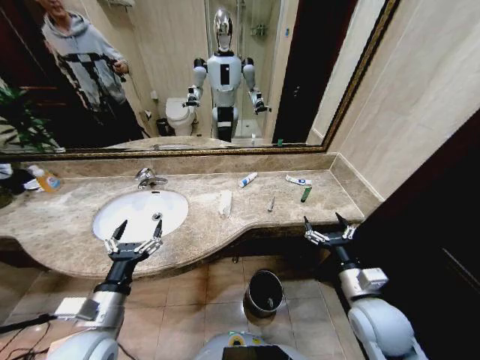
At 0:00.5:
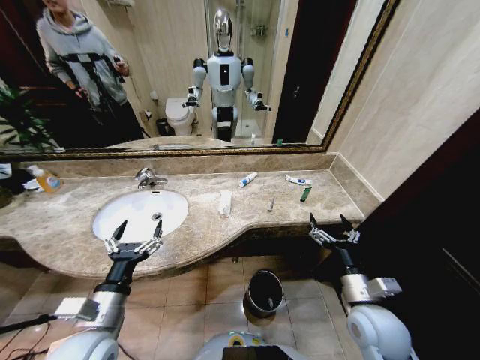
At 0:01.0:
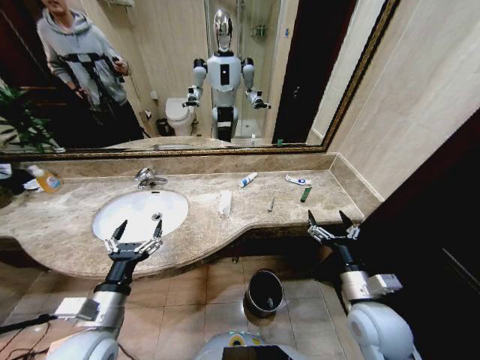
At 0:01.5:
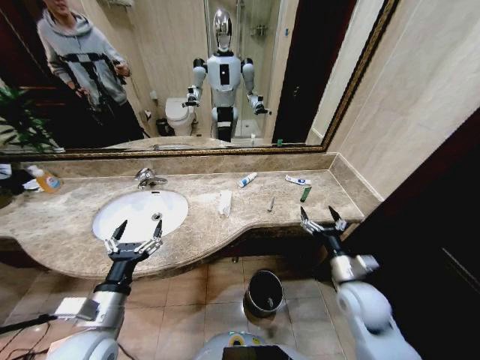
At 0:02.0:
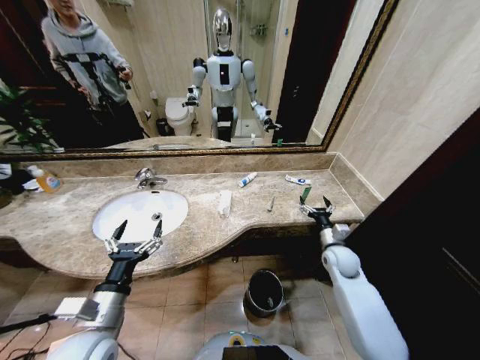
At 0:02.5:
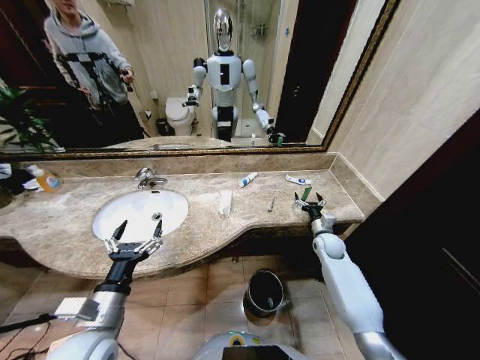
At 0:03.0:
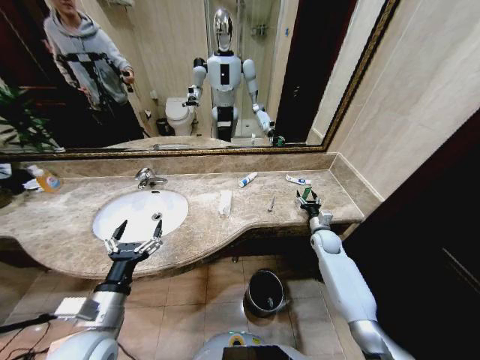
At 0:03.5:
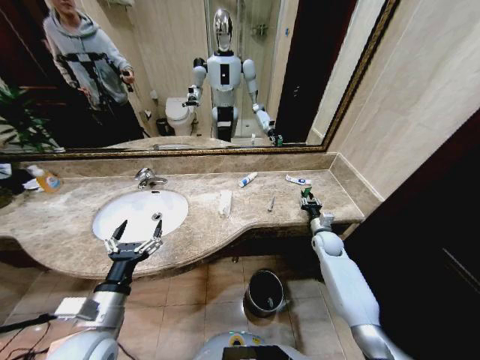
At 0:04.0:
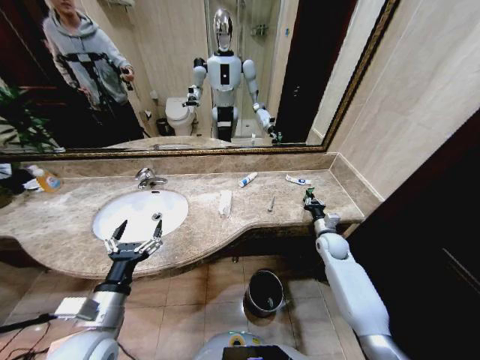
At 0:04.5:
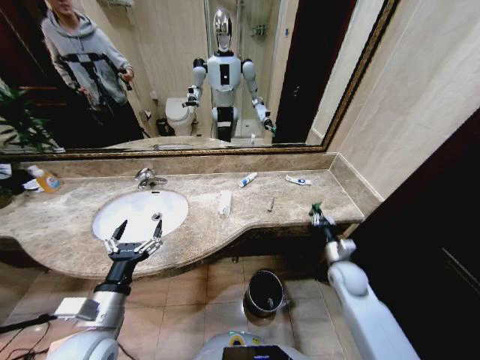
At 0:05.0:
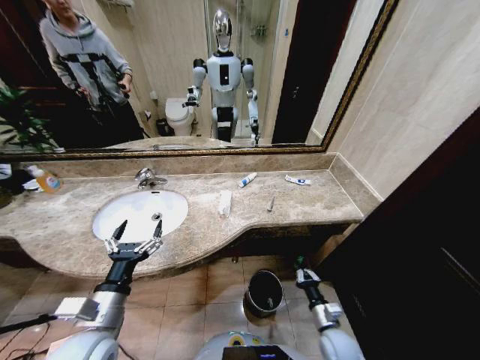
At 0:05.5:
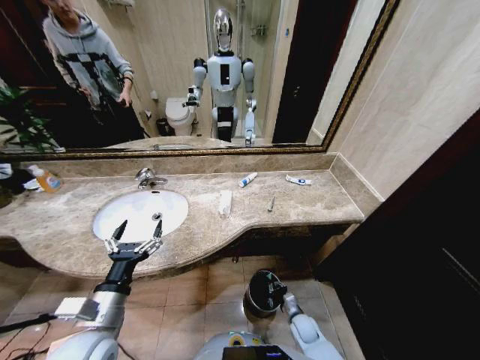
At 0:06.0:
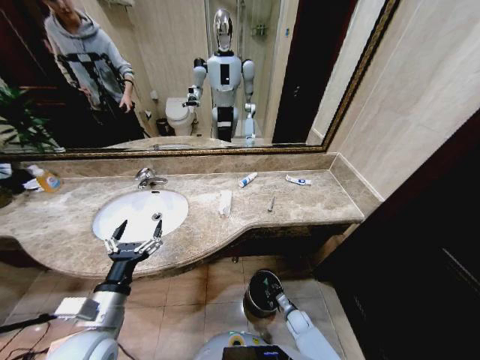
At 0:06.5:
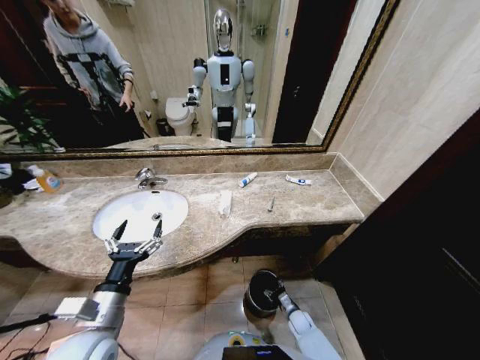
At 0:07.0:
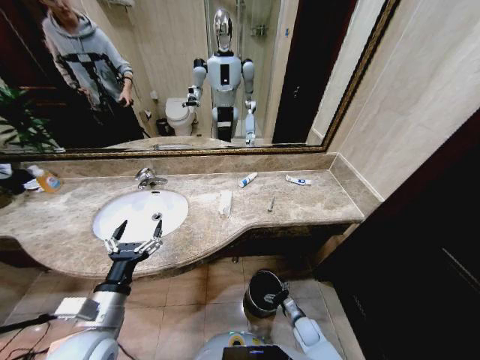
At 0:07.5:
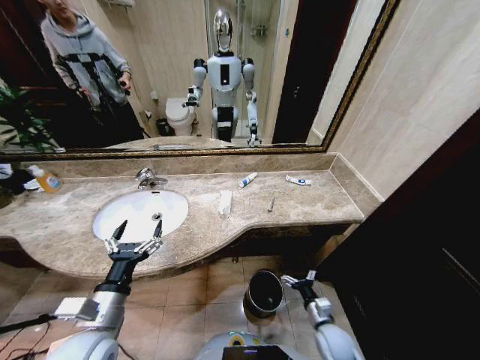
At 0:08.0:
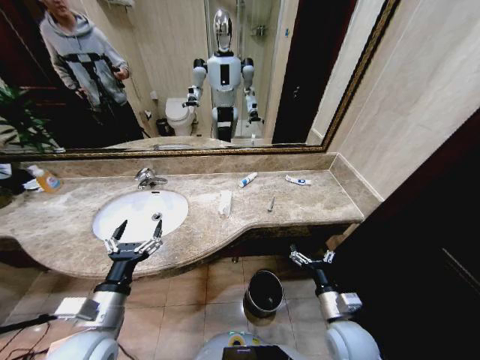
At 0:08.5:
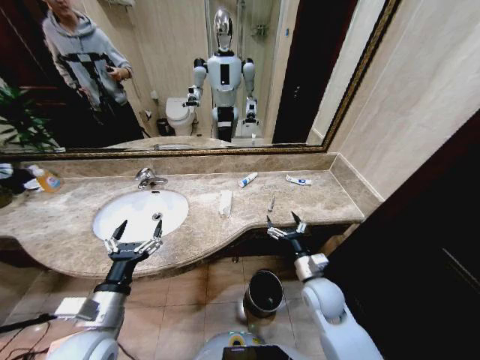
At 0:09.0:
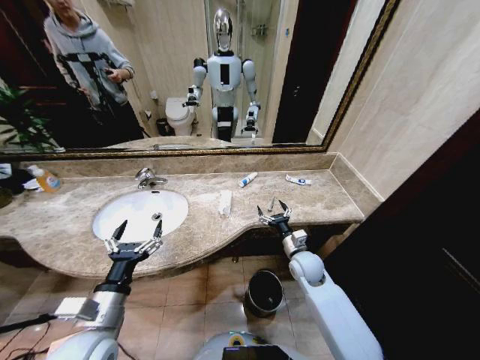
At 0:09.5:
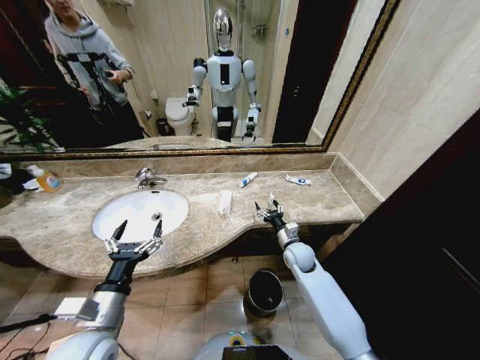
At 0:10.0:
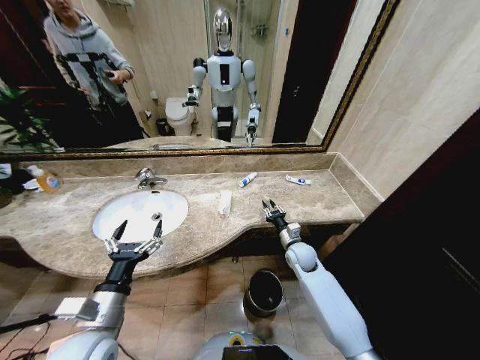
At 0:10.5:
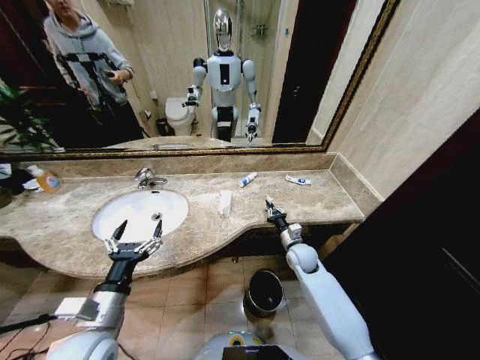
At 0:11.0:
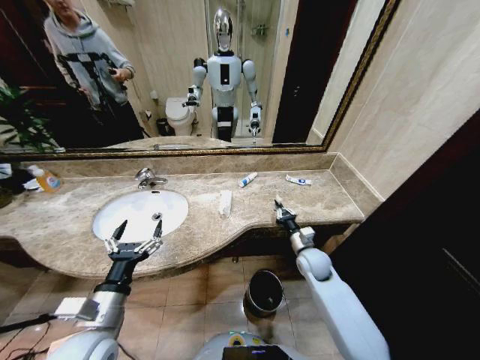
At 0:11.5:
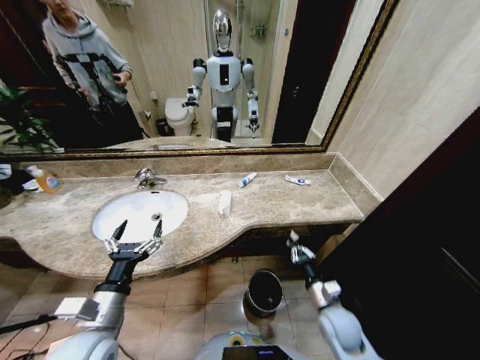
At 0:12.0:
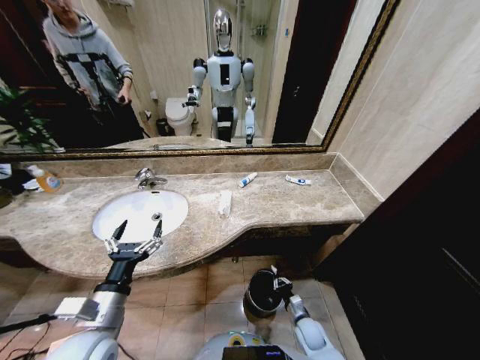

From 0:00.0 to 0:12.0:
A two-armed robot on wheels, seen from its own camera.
Task of the whole recording: Pick up the trash from the sink and place it in the trash bin.
From 0:02.0 to 0:04.0: The right gripper travels forward by approximately 5 cm, and closes its fingers.
From 0:04.0 to 0:06.0: The right gripper moves downward and backward, some 35 cm.
From 0:06.0 to 0:08.0: The right gripper goes approximately 30 cm upward, and opens.
From 0:08.0 to 0:10.0: The right gripper is displaced forward by about 25 cm, and closes up.
From 0:10.0 to 0:12.0: The right gripper shifts about 25 cm downward and backward.

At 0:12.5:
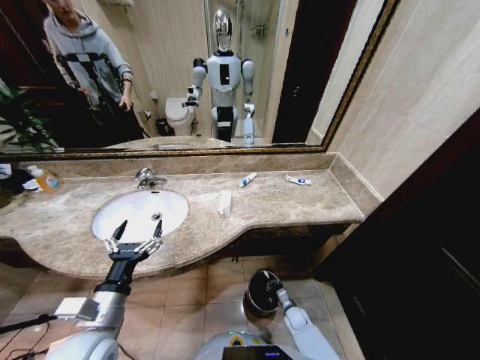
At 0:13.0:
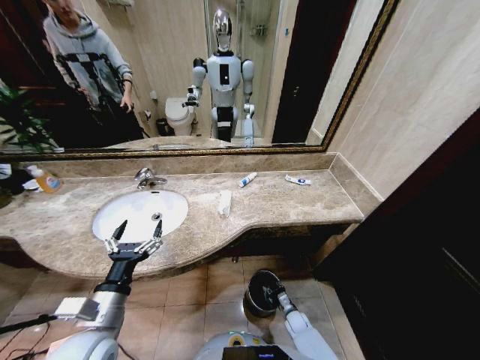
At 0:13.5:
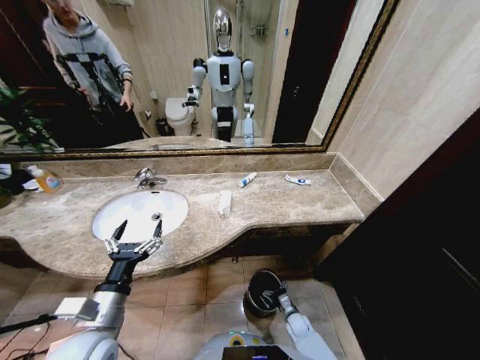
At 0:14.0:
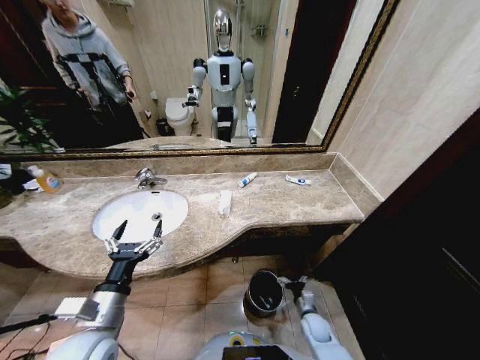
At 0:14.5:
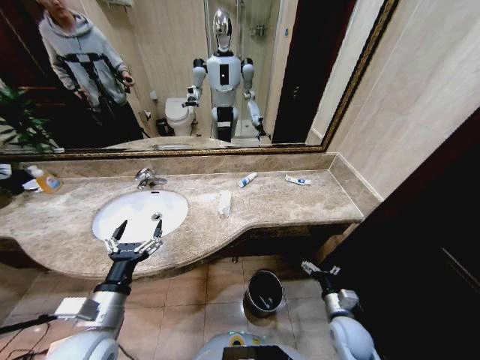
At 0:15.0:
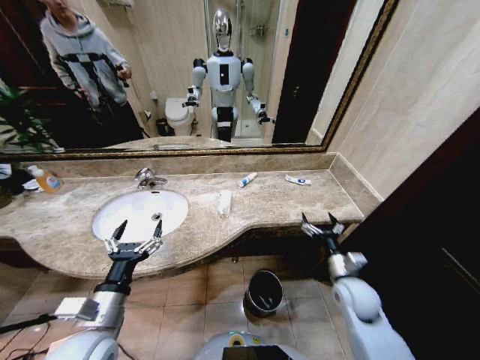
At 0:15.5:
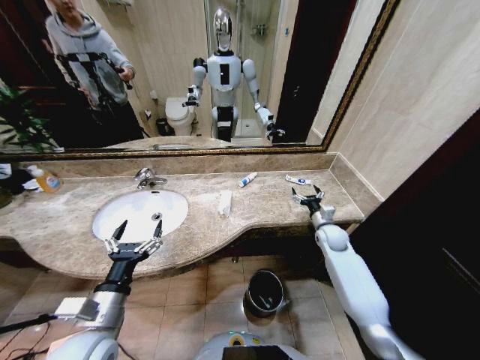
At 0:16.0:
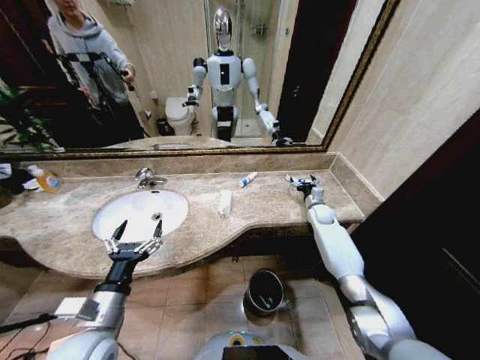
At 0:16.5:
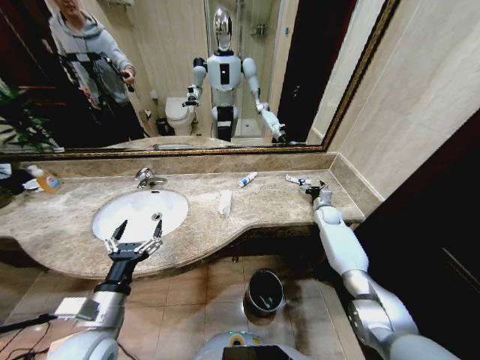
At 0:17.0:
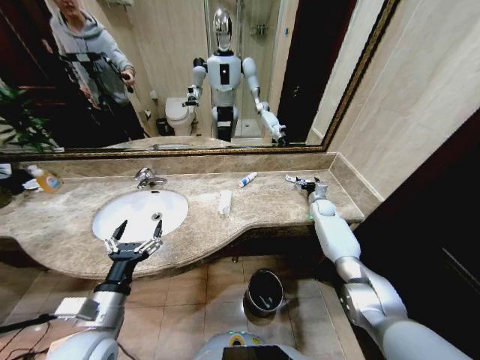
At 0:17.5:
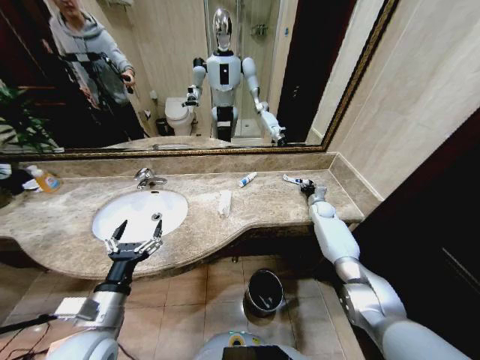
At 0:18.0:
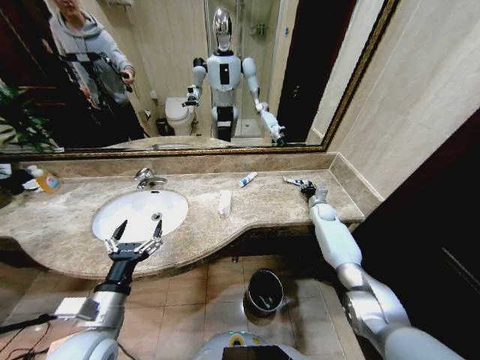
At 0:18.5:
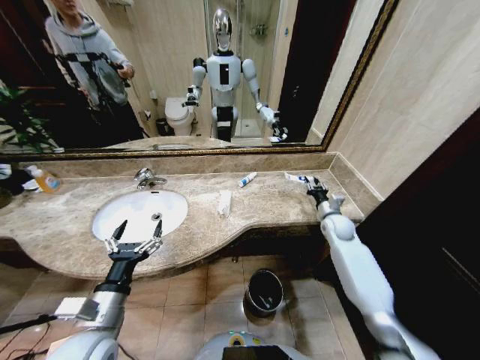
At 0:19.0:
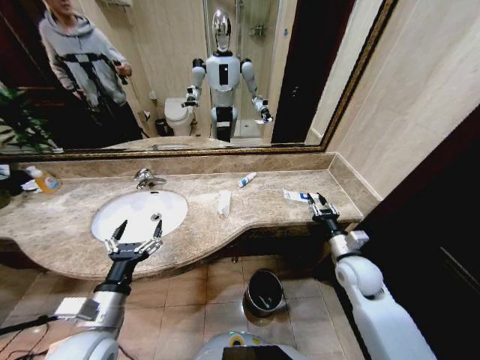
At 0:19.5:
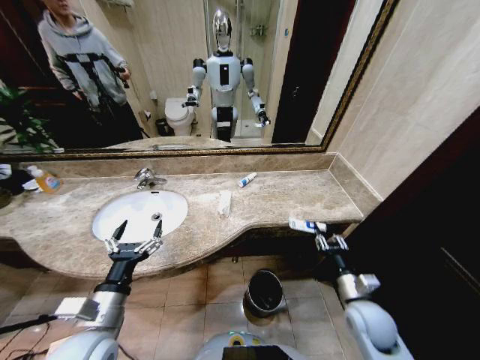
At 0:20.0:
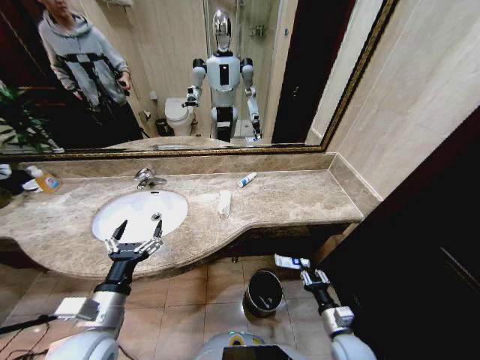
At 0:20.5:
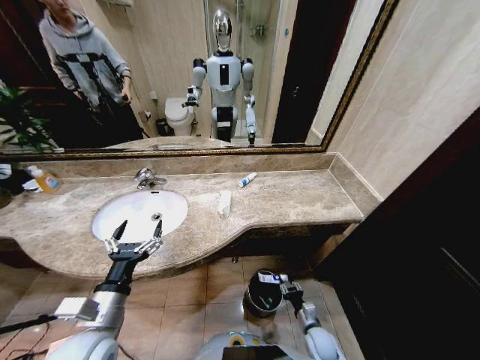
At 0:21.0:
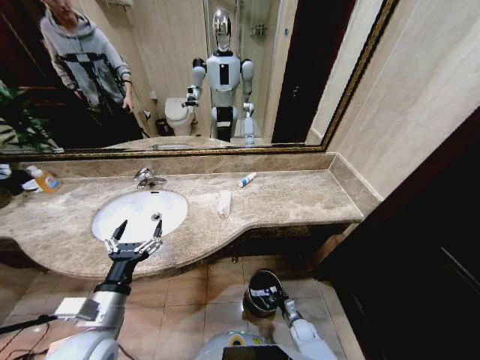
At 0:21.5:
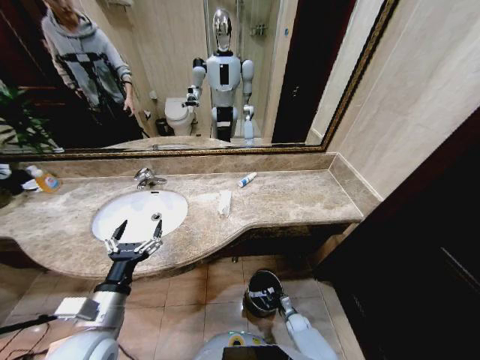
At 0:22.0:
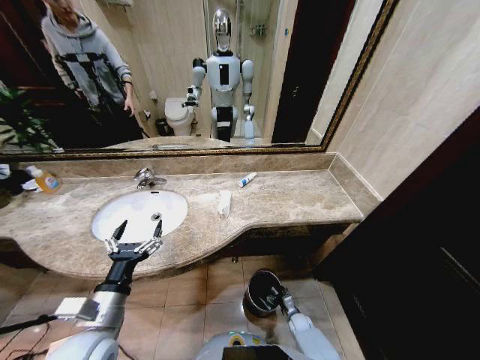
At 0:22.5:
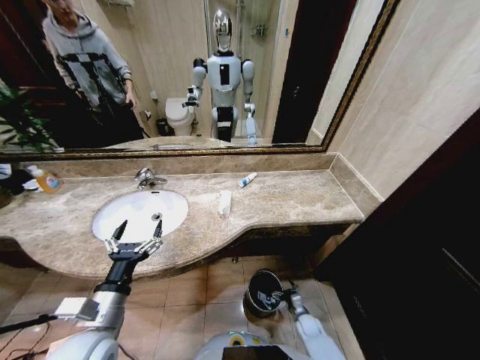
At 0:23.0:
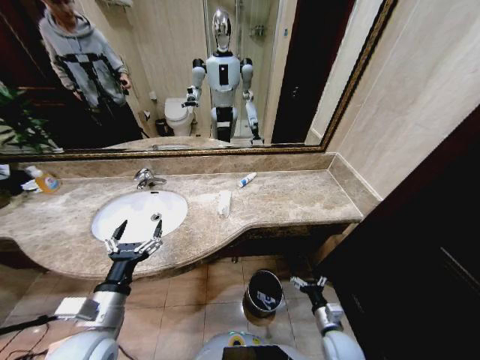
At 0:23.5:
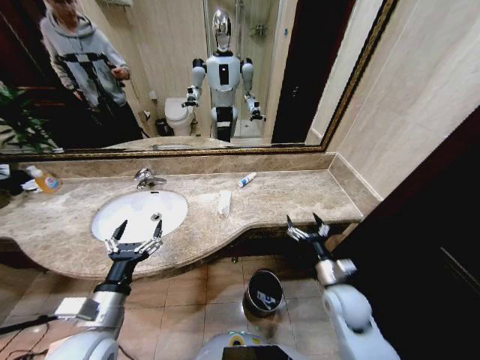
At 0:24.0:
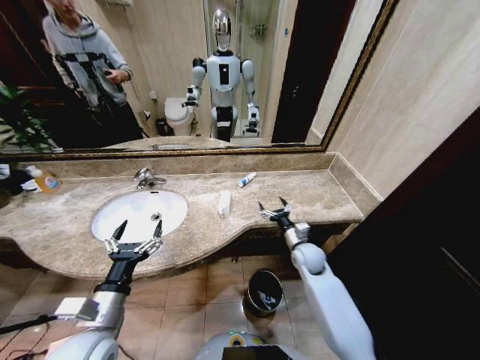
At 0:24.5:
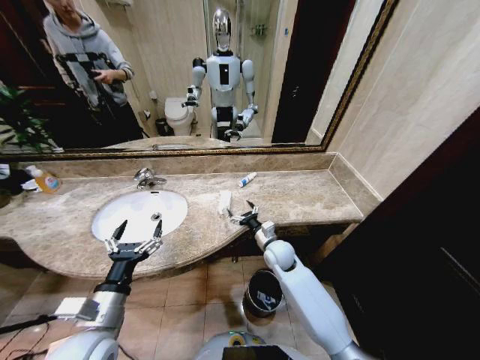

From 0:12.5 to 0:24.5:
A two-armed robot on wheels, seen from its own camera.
Task of the whole recording: Pick up the trash from the sink and place it in the trash bin.
From 0:12.5 to 0:14.5: The right gripper goes about 20 cm upward, and opens up.
From 0:14.5 to 0:16.5: The right gripper shifts some 35 cm forward.
From 0:16.5 to 0:18.5: The right gripper heads backward, covering roughly 10 cm, and closes its fingers.
From 0:18.5 to 0:20.5: The right gripper is displaced backward and downward by some 35 cm.
From 0:20.5 to 0:22.5: The right gripper goes about 10 cm downward and forward, and opens up.
From 0:22.5 to 0:24.5: The right gripper goes approximately 35 cm upward, forward and to the left.

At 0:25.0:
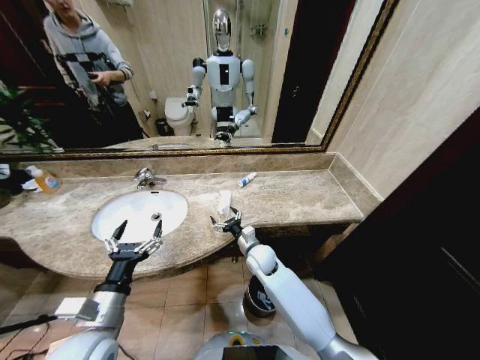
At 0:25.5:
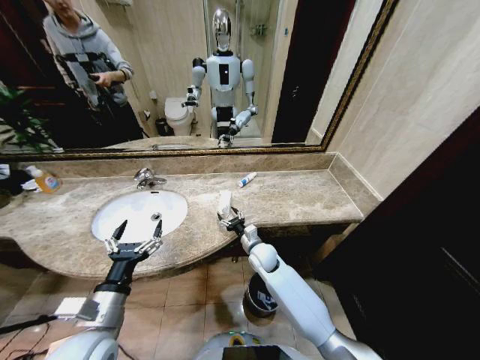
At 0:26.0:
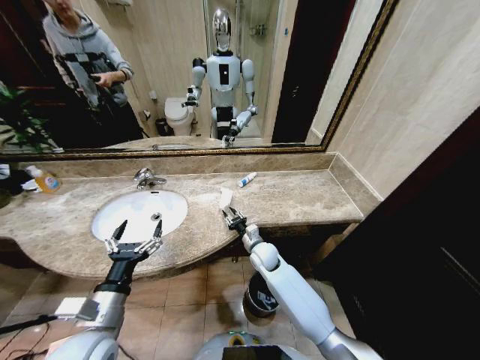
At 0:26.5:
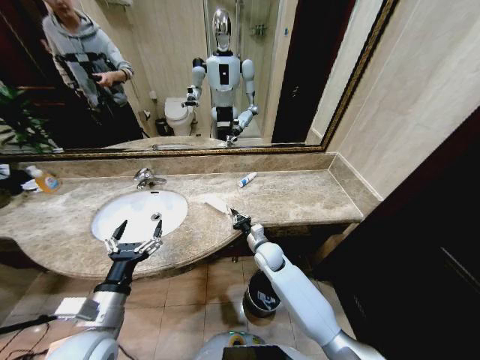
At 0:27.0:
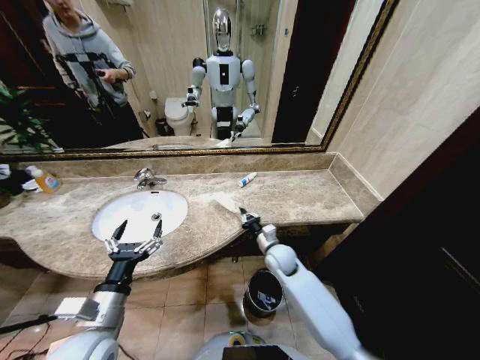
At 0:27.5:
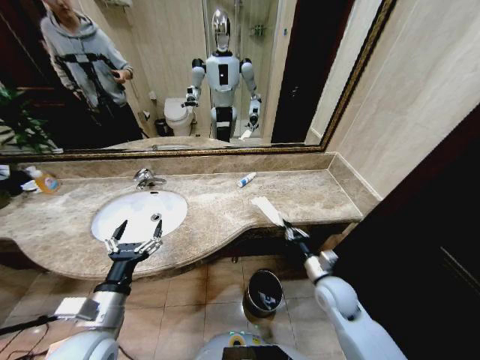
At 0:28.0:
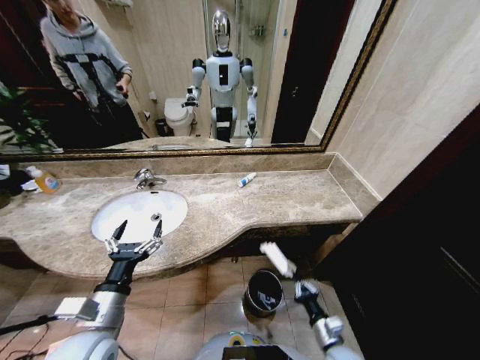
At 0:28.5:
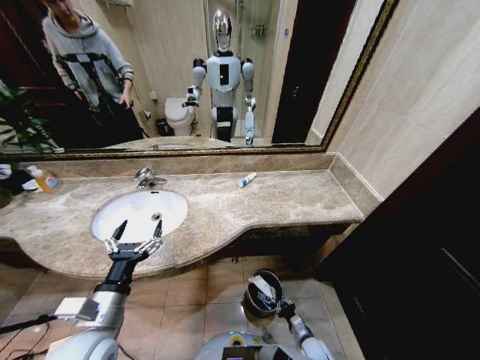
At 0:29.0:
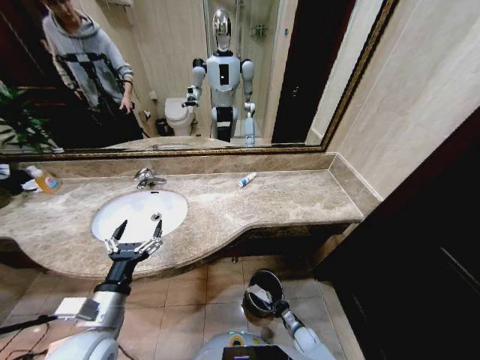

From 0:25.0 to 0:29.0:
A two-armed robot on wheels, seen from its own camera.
Task of the whole recording: Pick up the trash from the sink and place it in the trash bin.
From 0:25.0 to 0:27.0: The right gripper travels to the right by some 5 cm, and closes.
From 0:27.0 to 0:29.0: The right gripper moves downward and backward, about 35 cm.
